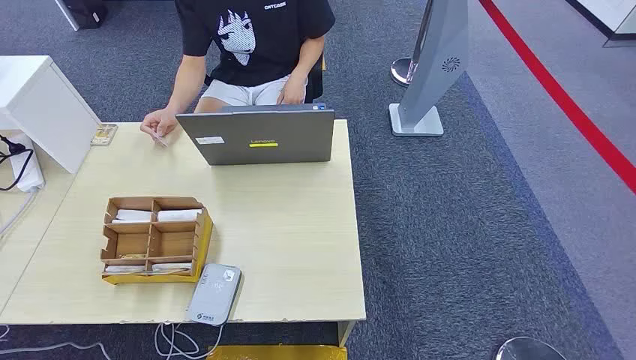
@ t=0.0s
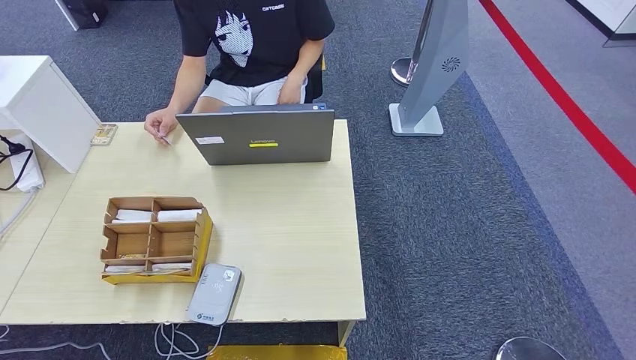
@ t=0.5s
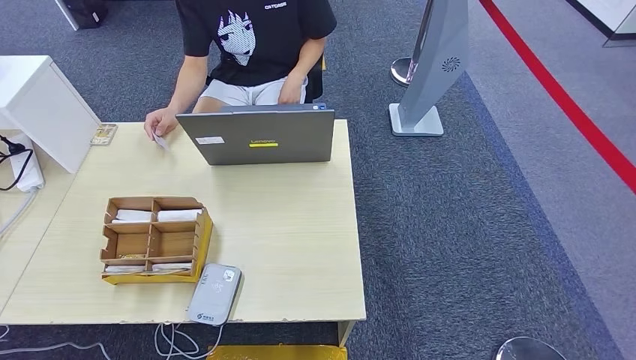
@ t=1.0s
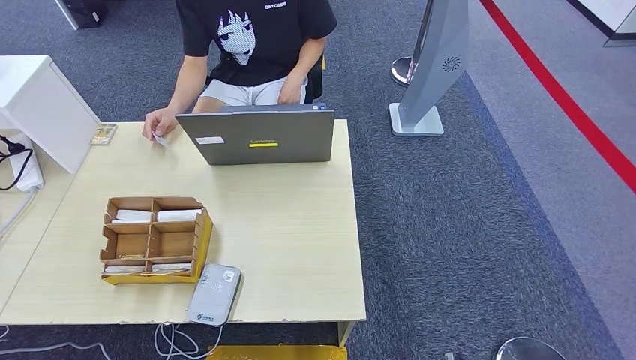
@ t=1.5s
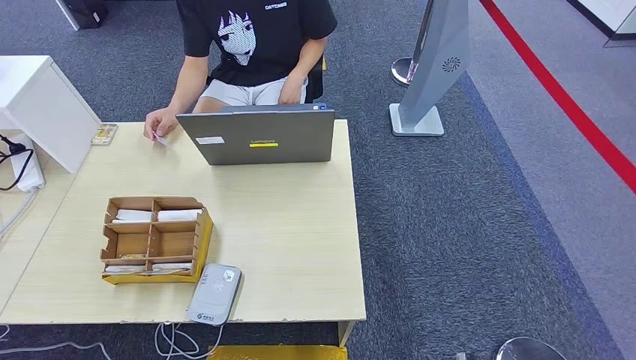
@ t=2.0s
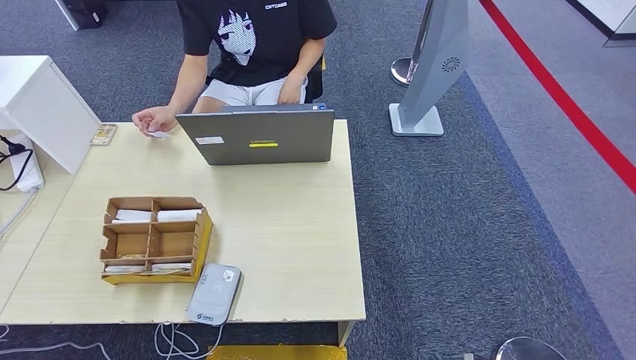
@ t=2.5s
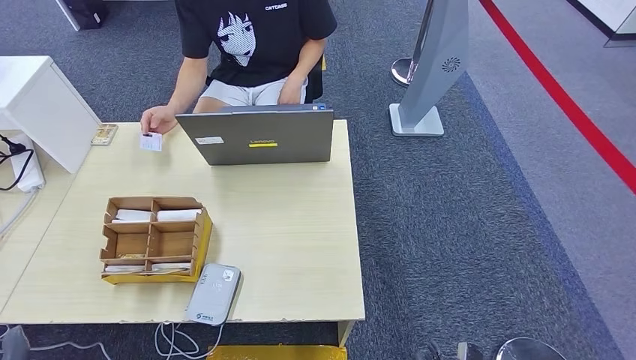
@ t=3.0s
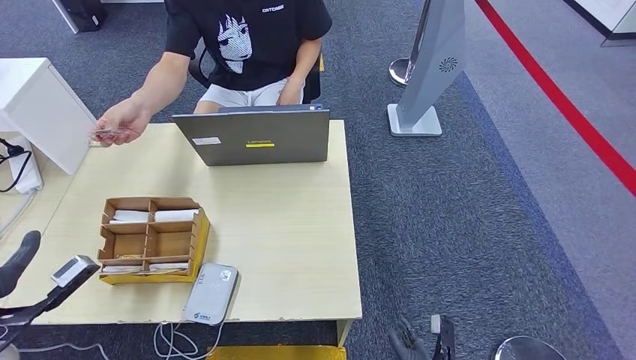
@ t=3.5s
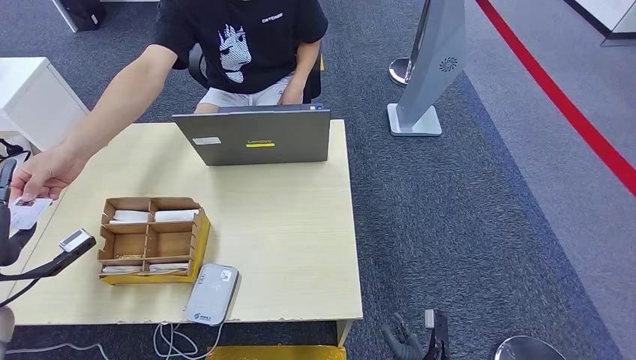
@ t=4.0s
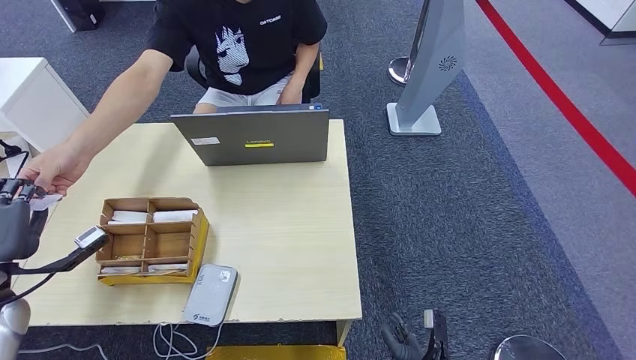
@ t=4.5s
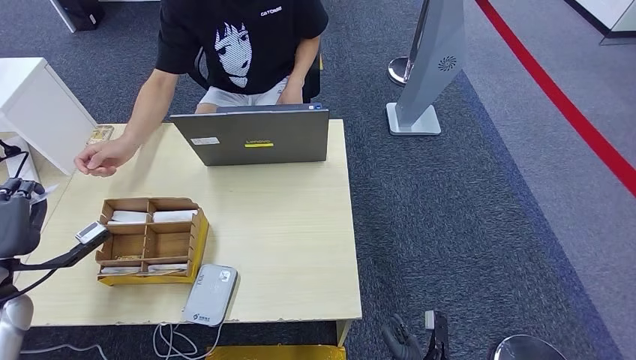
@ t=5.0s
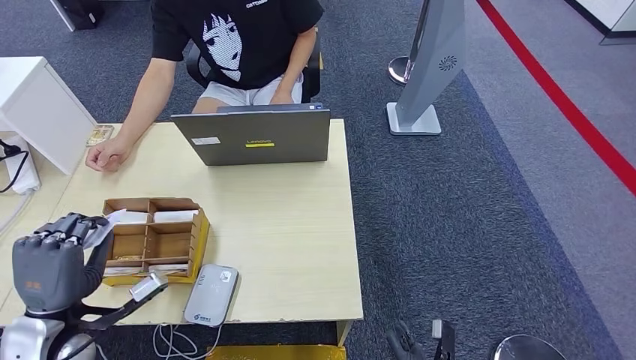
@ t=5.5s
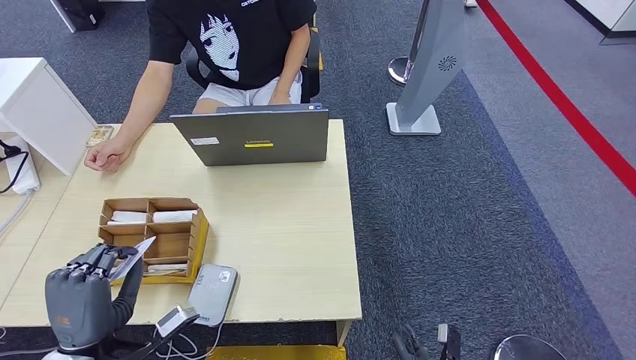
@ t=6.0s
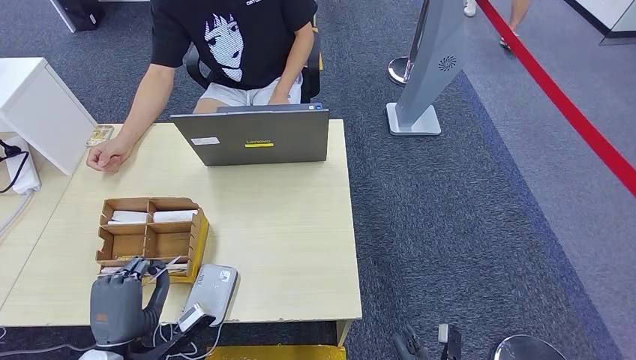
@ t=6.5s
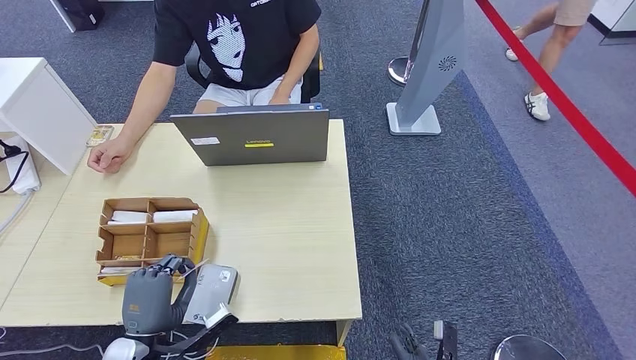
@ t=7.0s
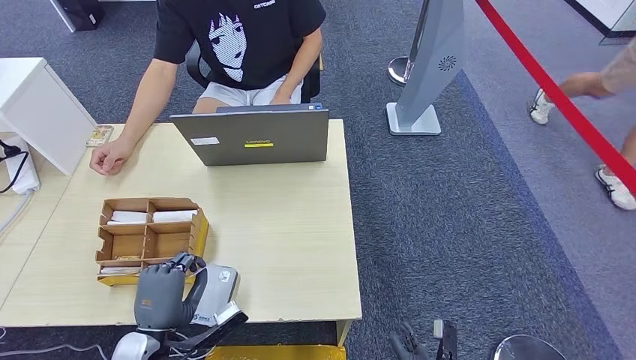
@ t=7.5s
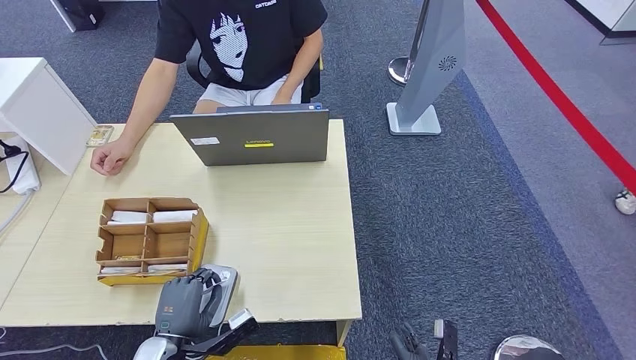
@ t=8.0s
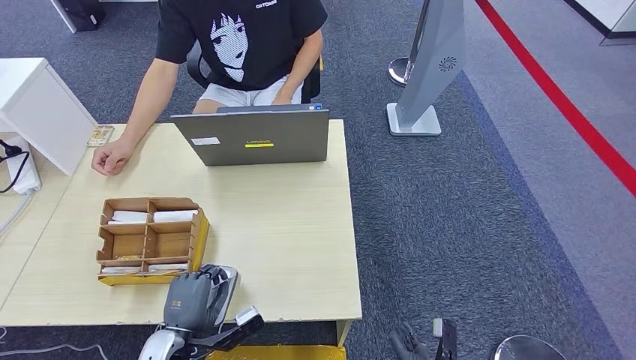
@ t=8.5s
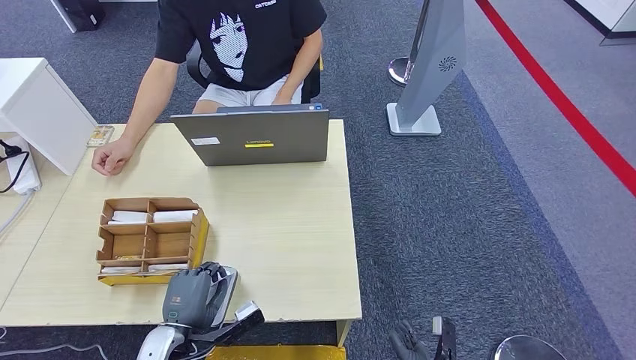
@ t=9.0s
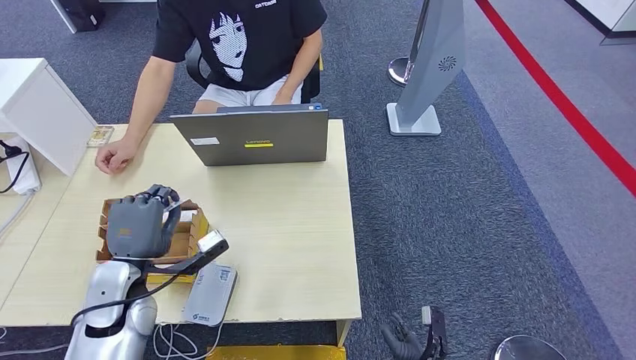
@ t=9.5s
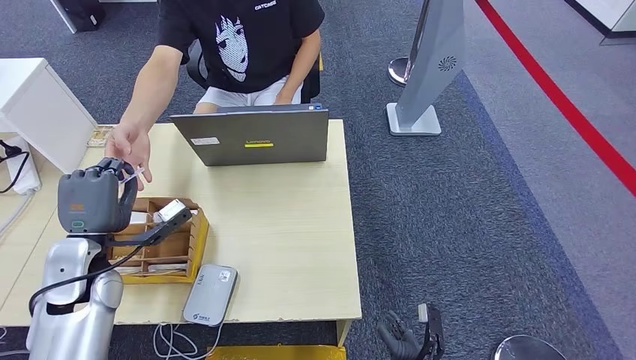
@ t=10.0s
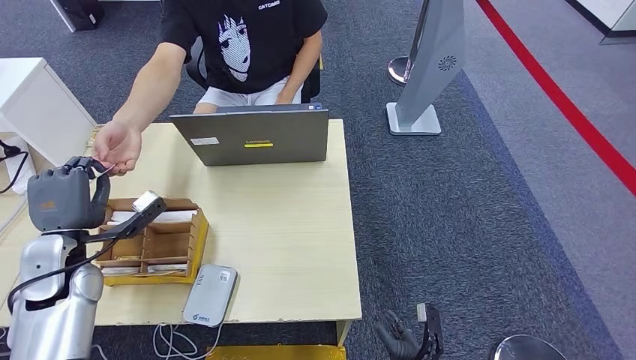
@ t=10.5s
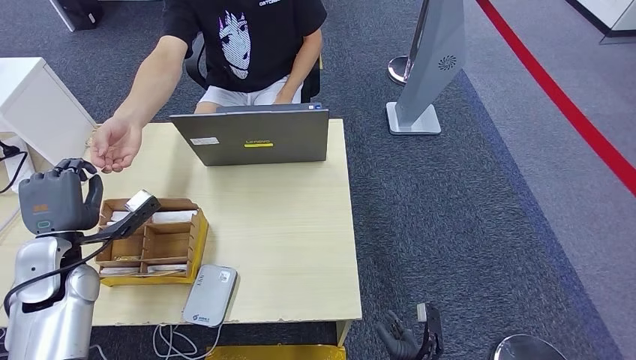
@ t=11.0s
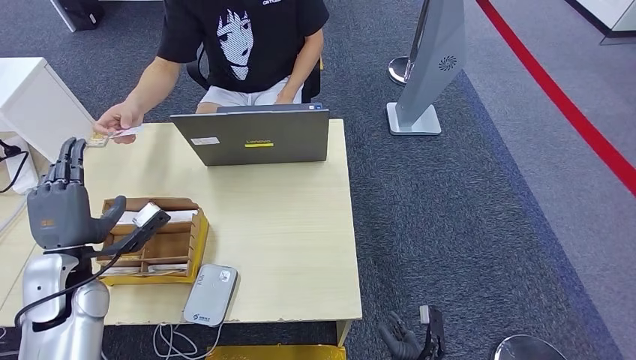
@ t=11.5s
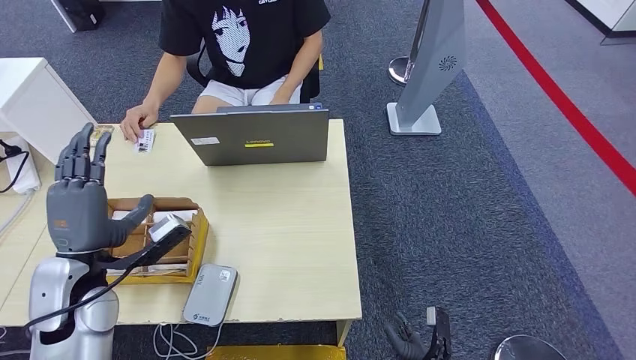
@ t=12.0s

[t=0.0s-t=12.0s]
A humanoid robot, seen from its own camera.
Step, t=0.0s to t=5.0s: Take the ID card from the person's hand.
Step, t=6.0s to t=8.5s: Place the ID card on the card reader.
Step, t=9.0s to t=11.5s: Hand the ID card to the person.
t=2.0s to t=4.0s: The right hand moves forward, roughly 10 cm, while the left hand travels forward, upward and to the left by roughly 35 cm.
t=4.0s to t=6.0s: The left hand shifts roughly 20 cm to the right and backward.
t=6.0s to t=8.0s: The left hand travels downward and to the right by roughly 10 cm.
t=8.0s to t=10.0s: The left hand moves upward, forward and to the left, approximately 20 cm.
t=10.0s to t=12.0s: The hands make only small movements.

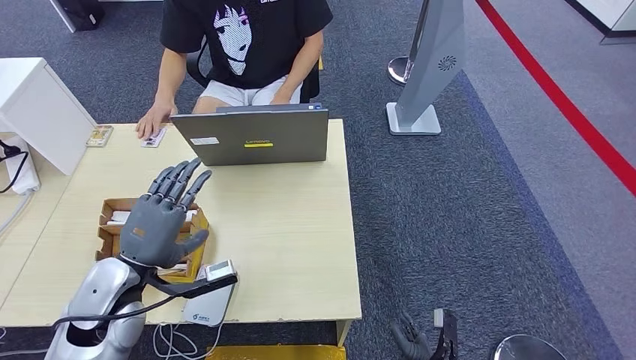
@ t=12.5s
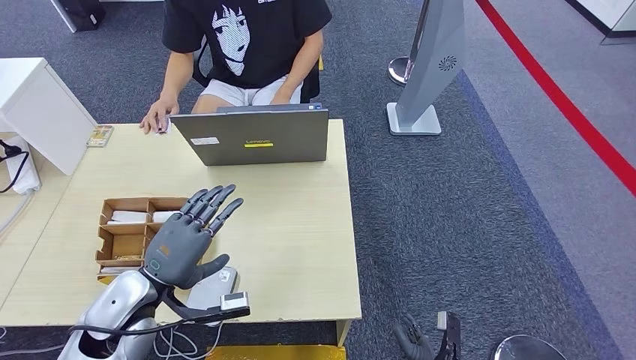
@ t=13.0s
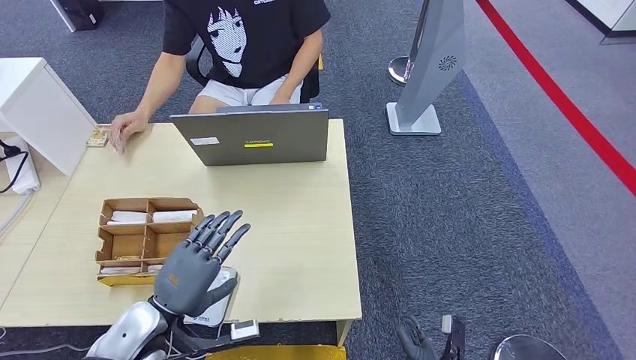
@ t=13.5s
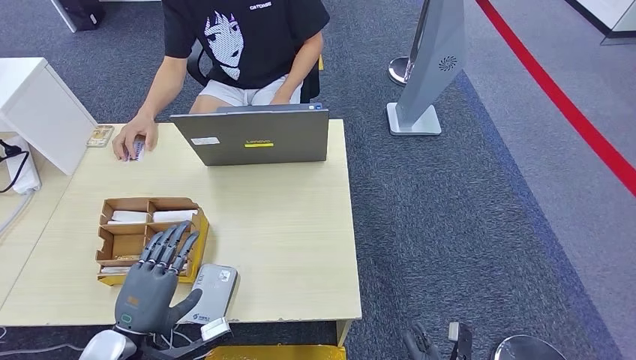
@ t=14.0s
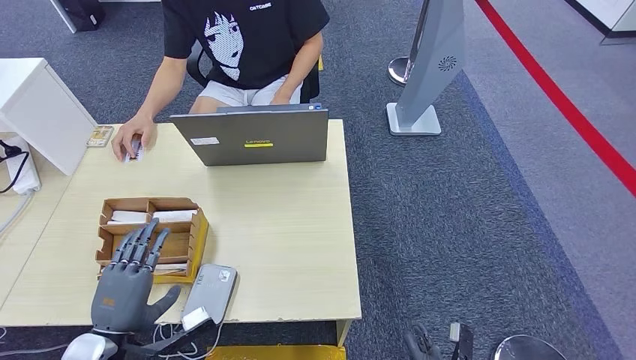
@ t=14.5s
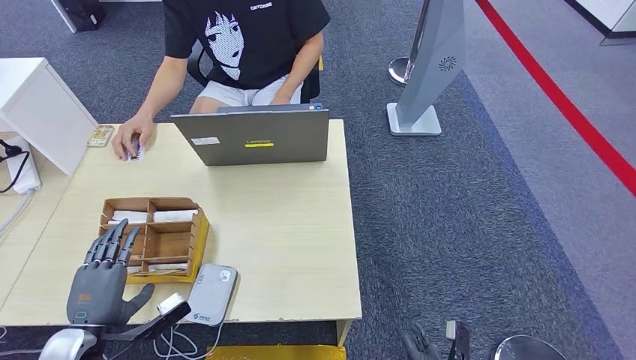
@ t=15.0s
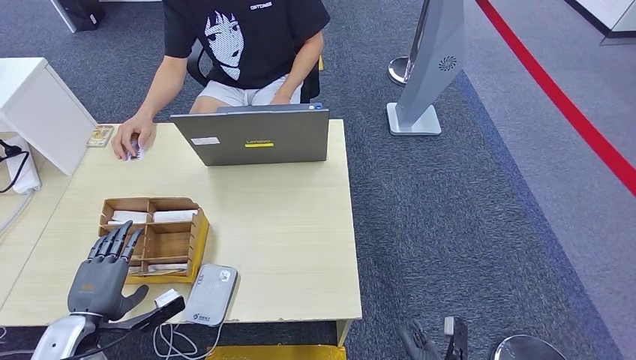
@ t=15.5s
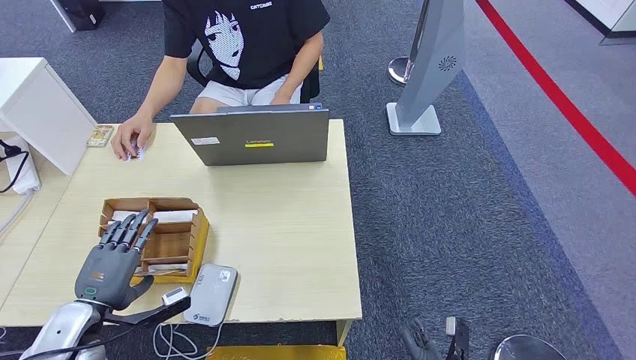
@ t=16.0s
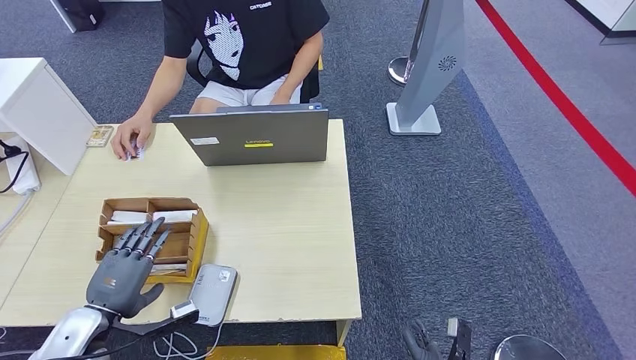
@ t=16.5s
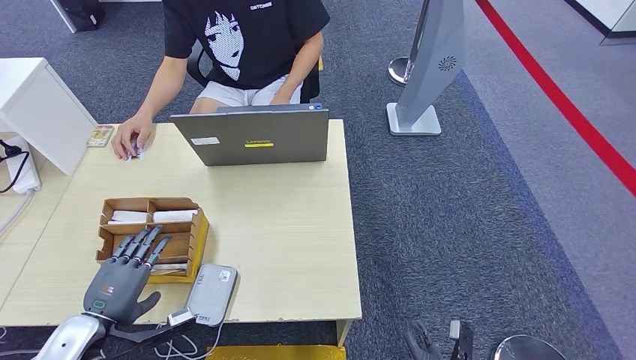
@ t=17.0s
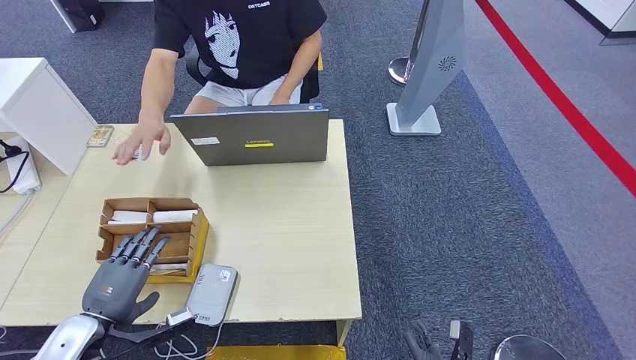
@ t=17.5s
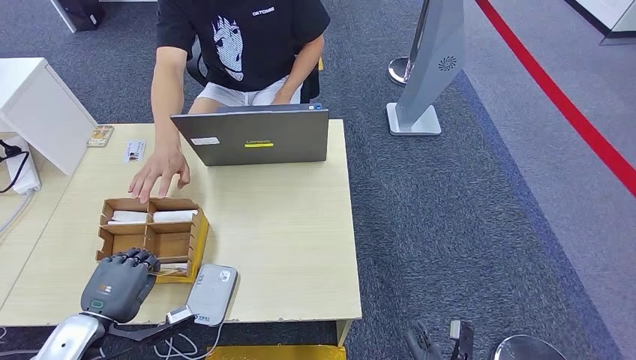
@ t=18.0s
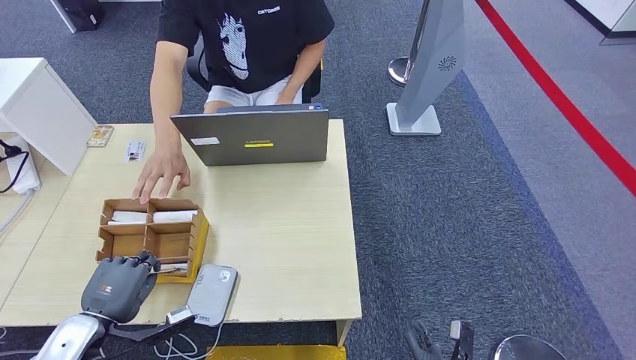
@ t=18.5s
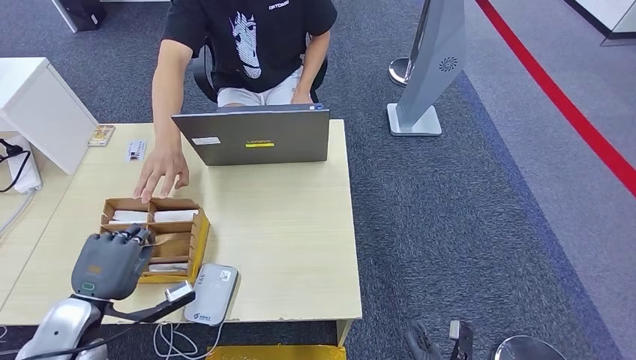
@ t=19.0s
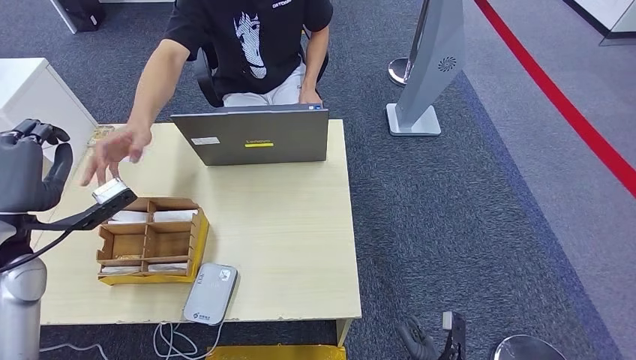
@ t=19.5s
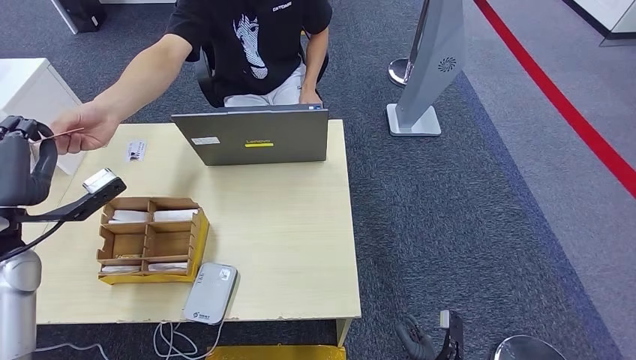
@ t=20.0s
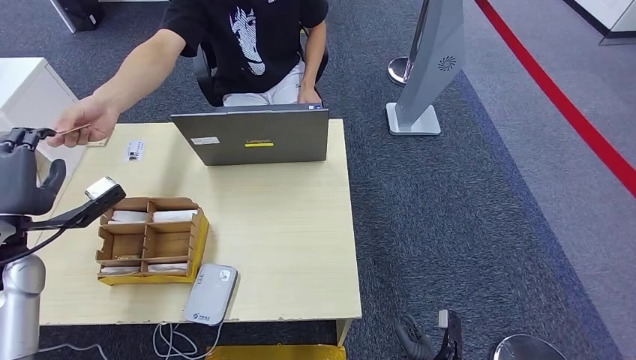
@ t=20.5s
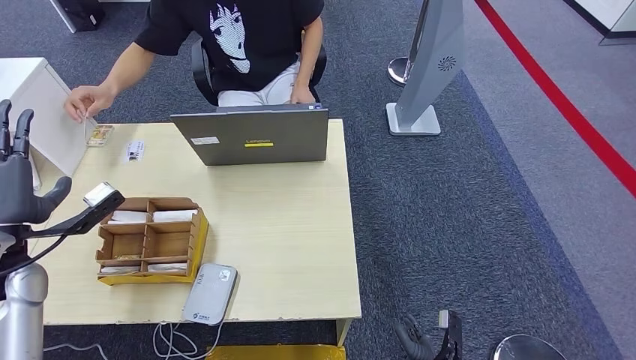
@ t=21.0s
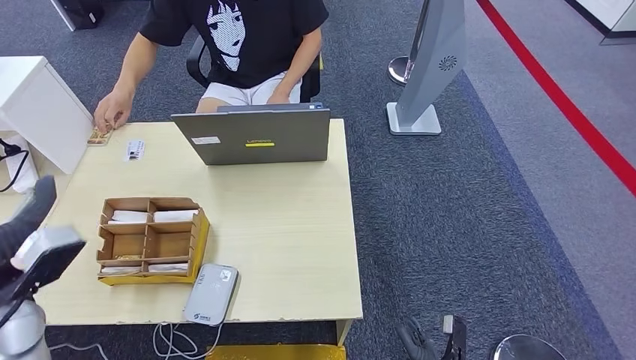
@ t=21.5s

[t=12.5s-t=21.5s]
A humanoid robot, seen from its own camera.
Step, t=12.5s to t=18.5s: Pick up the room key from the key card box.
Step, t=19.0s to t=21.5s: Hand the room key to the person.
t=12.5s to t=14.5s: The left hand goes roughly 10 cm backward and downward.
t=14.5s to t=17.0s: The left hand goes approximately 5 cm to the left.
t=17.0s to t=19.5s: The left hand heads upward and forward, covering approximately 20 cm.
t=19.5s to t=21.5s: The left hand goes about 5 cm backward.
